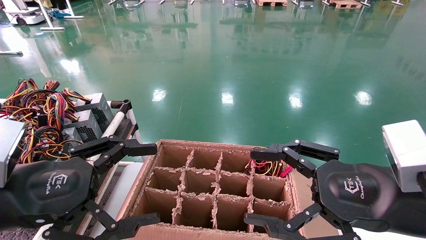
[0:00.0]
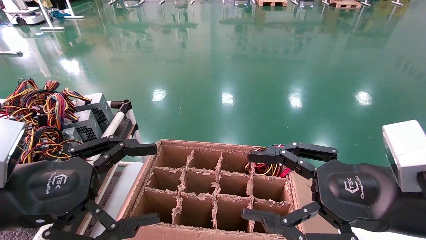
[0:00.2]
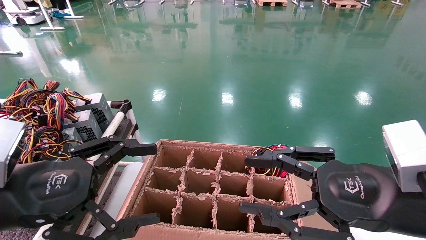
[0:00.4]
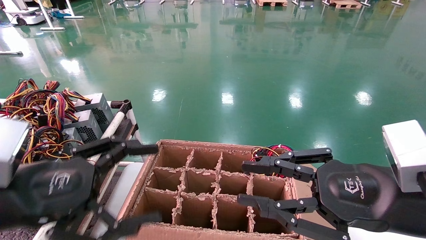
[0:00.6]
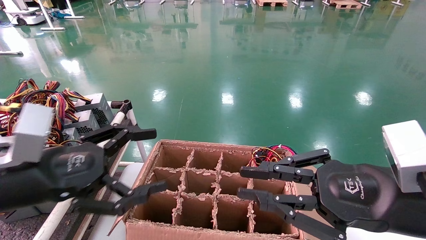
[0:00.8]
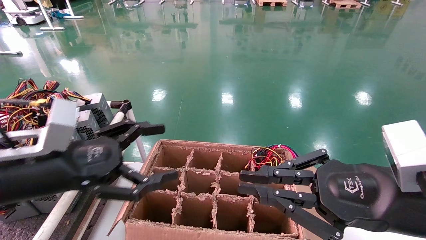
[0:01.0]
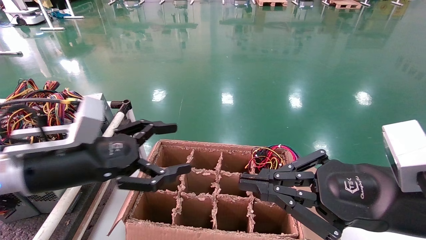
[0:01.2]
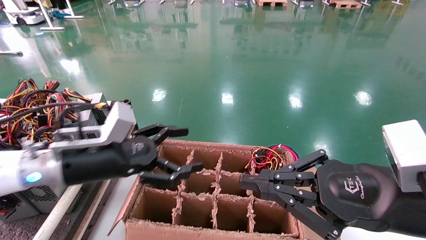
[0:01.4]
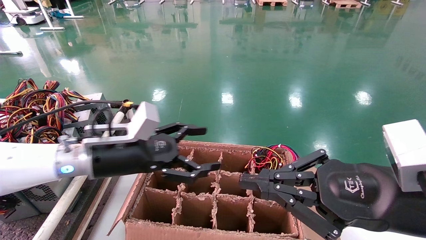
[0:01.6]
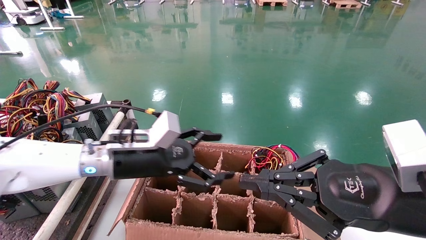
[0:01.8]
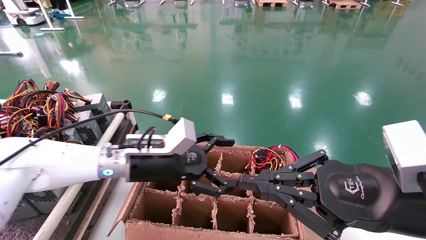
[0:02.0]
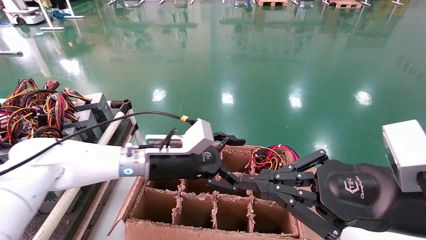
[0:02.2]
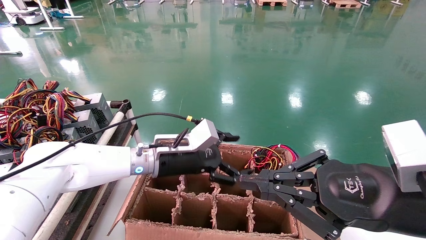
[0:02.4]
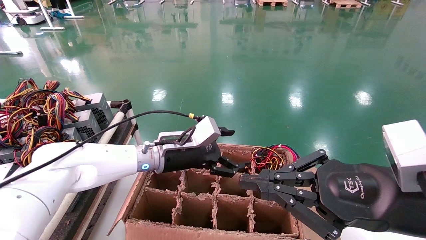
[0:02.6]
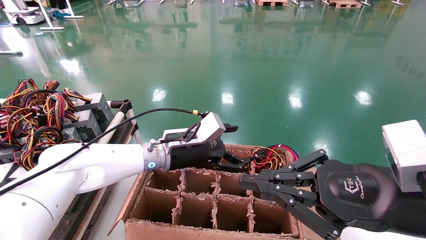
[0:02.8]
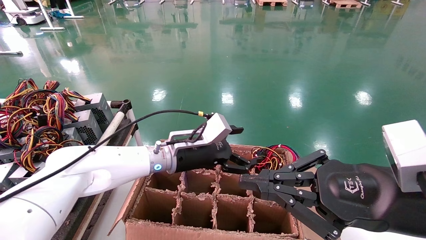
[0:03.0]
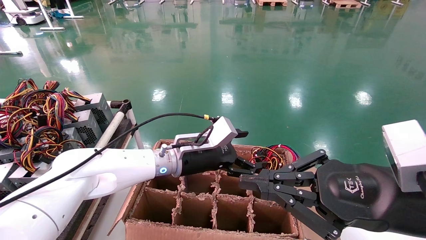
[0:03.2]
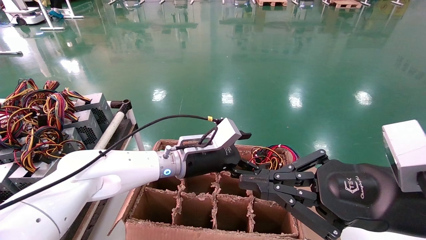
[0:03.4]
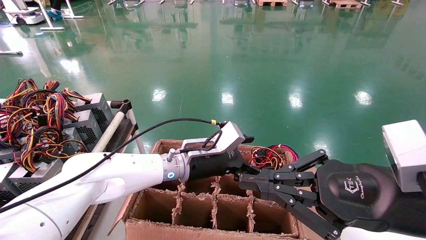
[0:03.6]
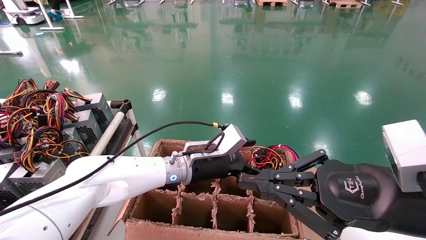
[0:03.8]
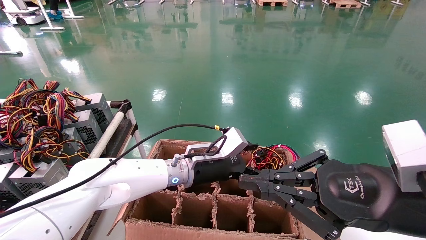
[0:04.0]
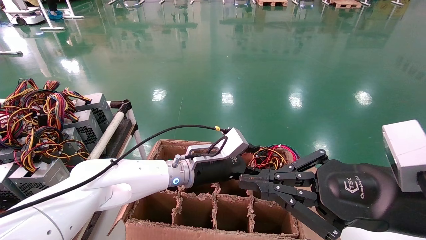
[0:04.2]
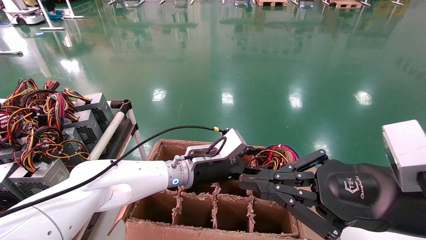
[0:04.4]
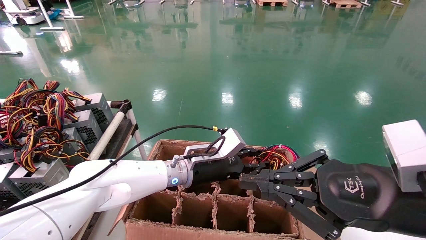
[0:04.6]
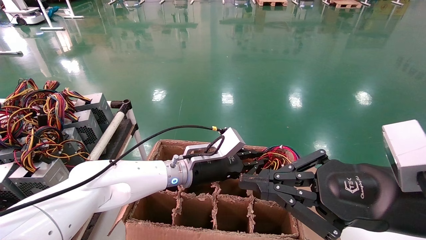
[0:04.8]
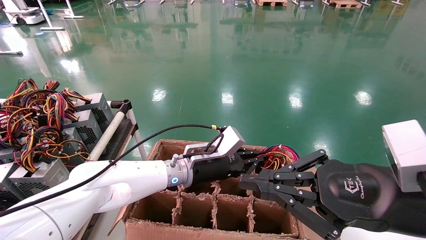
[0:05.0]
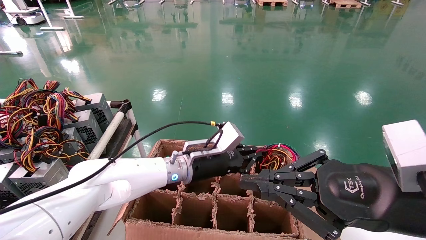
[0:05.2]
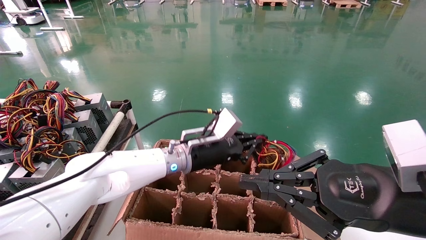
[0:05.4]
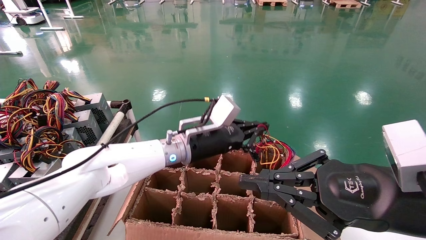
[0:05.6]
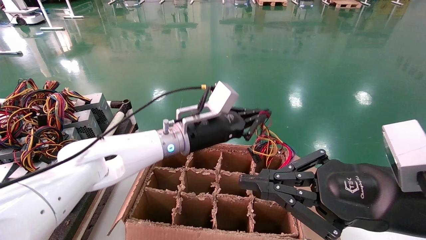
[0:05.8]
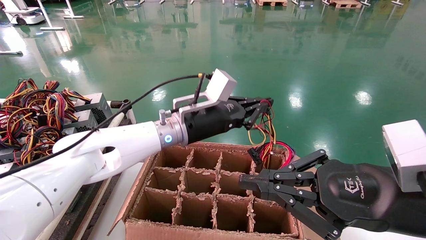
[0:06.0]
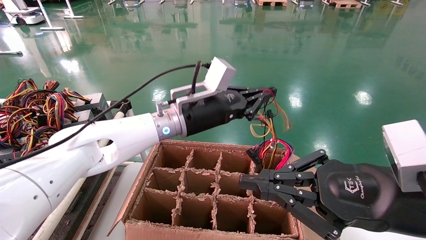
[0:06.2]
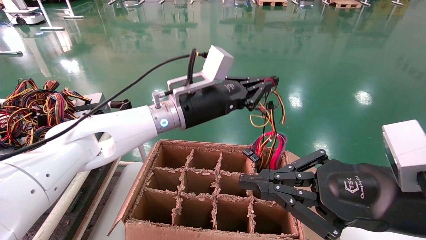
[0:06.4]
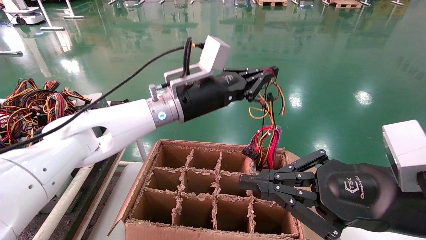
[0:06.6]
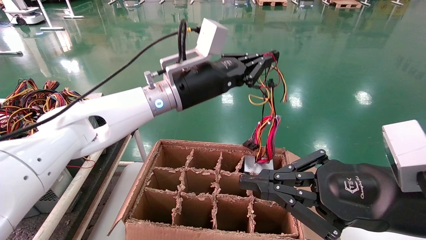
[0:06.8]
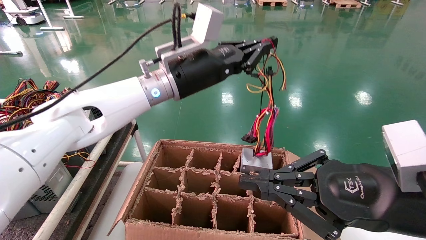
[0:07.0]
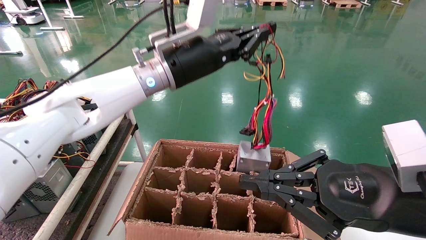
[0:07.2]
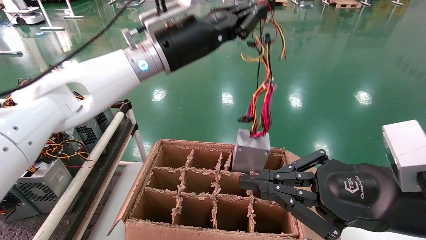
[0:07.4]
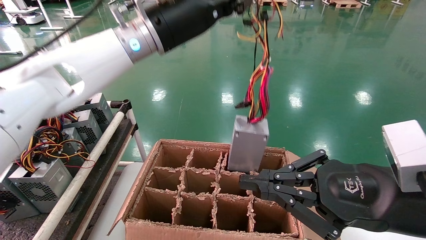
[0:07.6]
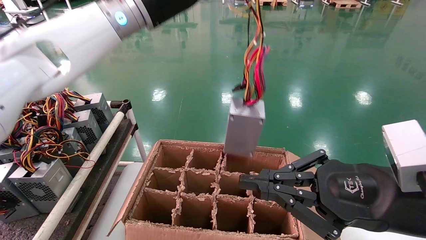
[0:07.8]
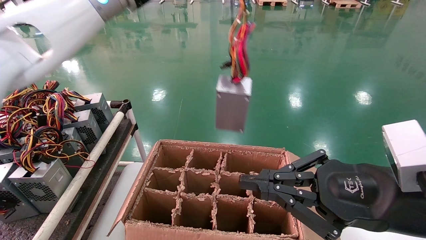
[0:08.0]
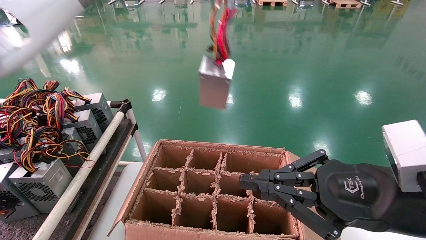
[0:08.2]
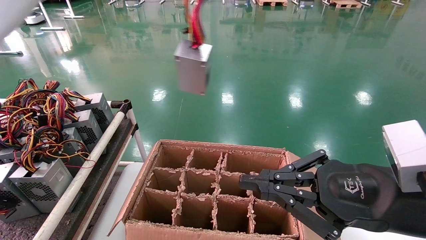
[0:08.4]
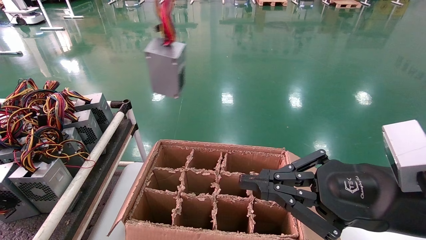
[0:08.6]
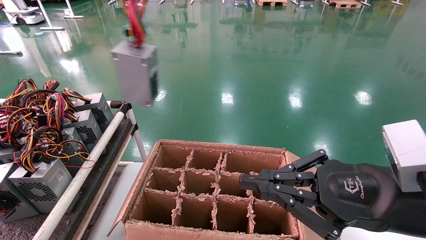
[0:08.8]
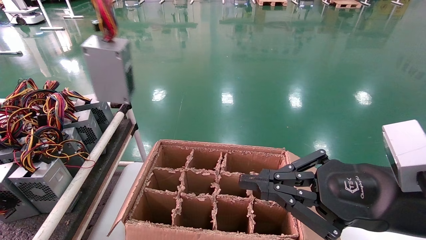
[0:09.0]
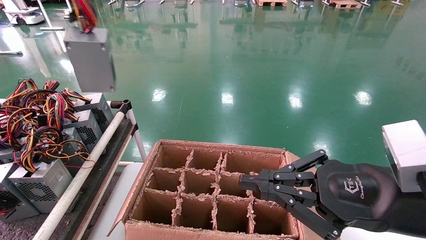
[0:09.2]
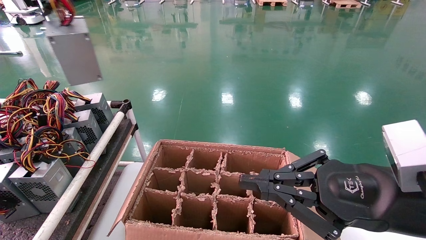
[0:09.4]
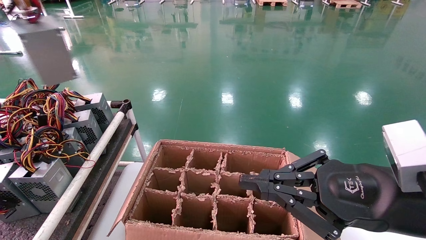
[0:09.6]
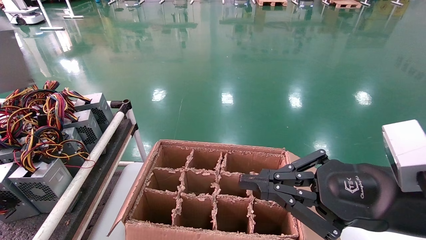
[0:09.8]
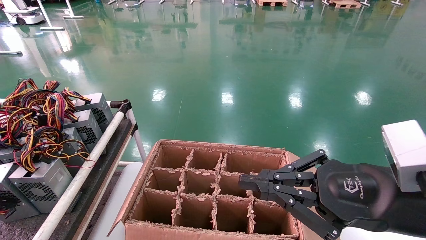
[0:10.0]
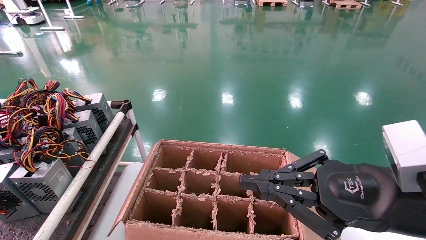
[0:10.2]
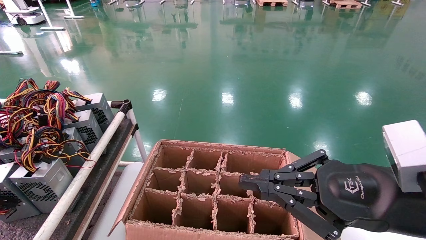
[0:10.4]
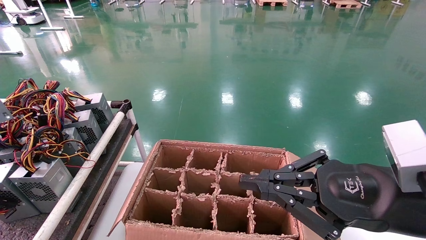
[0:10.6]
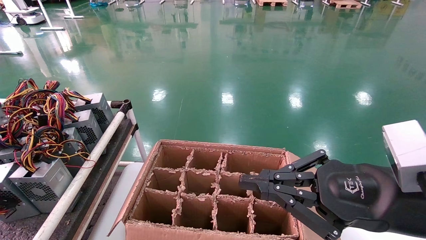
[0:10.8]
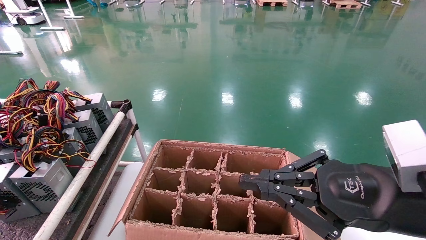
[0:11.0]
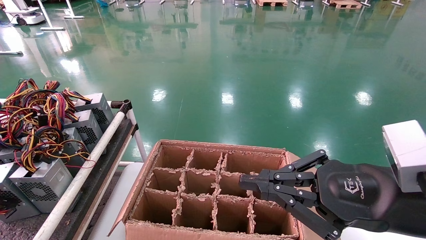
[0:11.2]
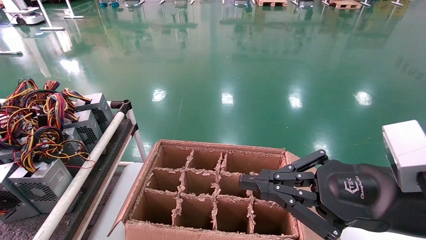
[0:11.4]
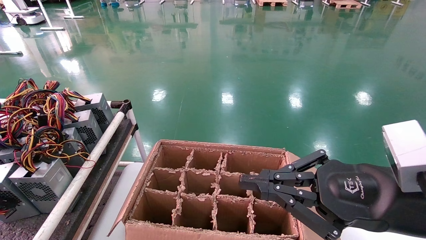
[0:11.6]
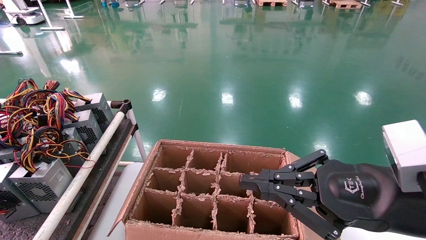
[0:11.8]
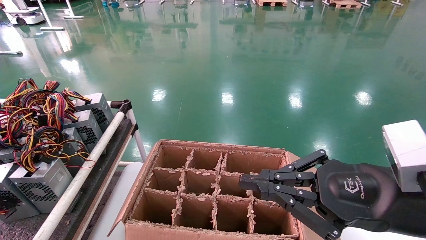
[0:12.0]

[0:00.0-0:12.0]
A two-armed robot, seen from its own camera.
Step, 0:01.6 to 0:05.4: Grab and lift the power supply from the large box.
0:00.0 to 0:01.6: The left gripper shifts roughly 15 cm forward and to the right. The right gripper closes.
0:01.6 to 0:03.0: The left gripper goes approximately 15 cm to the right and forward.
0:03.0 to 0:04.4: The left gripper closes up.
0:04.4 to 0:06.0: The left gripper travels upward by approximately 10 cm, and closes its fingers.
0:06.0 to 0:07.6: The left gripper is displaced upward by about 20 cm.
0:07.6 to 0:09.0: The left gripper moves to the left and upward, some 30 cm.
0:09.0 to 0:10.4: The left gripper heads to the left and backward, covering some 30 cm.

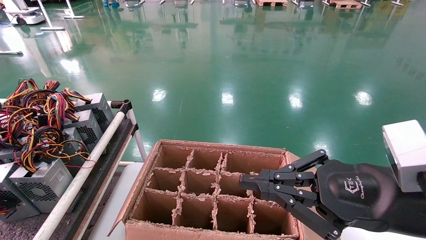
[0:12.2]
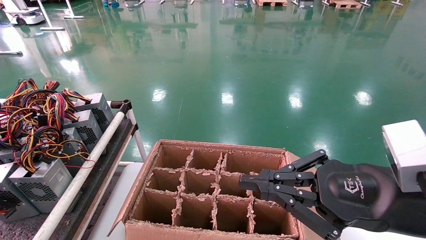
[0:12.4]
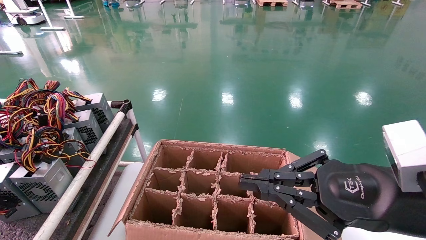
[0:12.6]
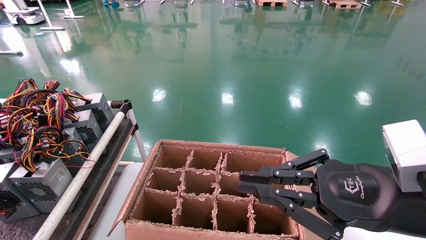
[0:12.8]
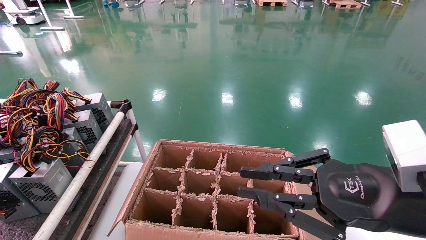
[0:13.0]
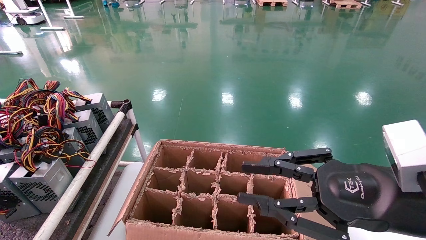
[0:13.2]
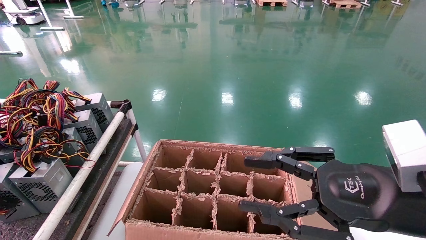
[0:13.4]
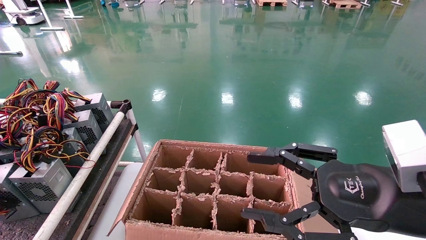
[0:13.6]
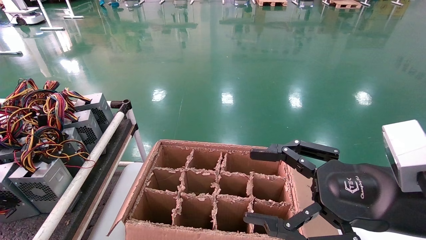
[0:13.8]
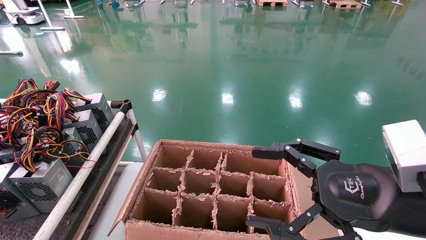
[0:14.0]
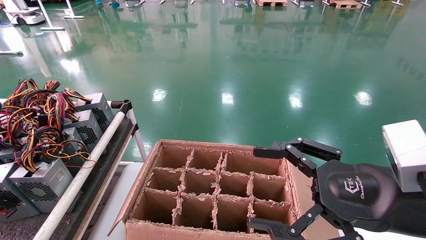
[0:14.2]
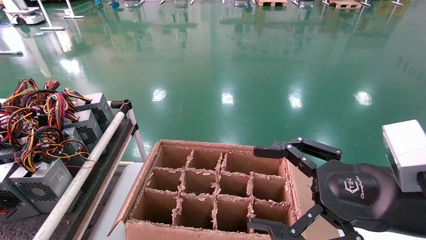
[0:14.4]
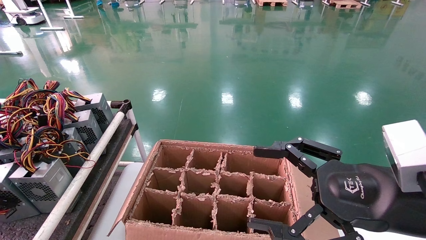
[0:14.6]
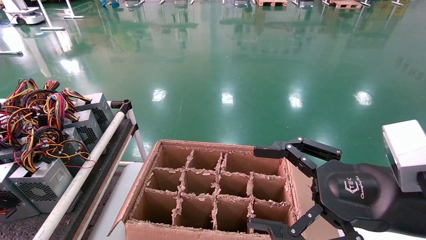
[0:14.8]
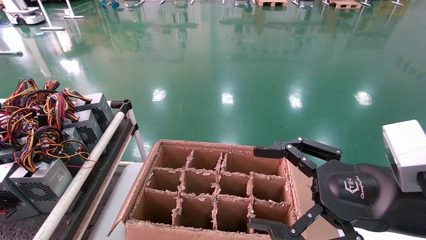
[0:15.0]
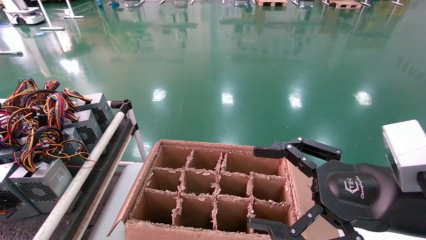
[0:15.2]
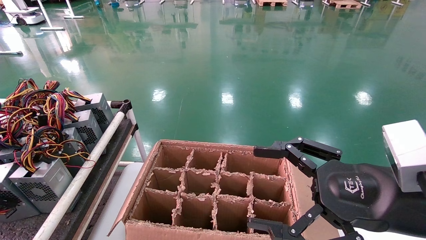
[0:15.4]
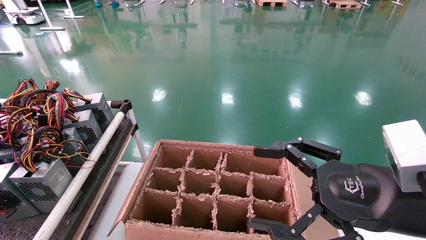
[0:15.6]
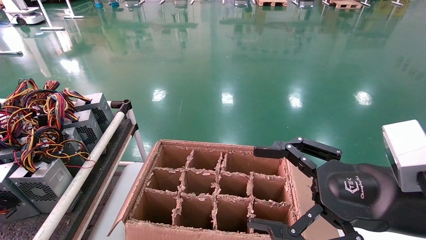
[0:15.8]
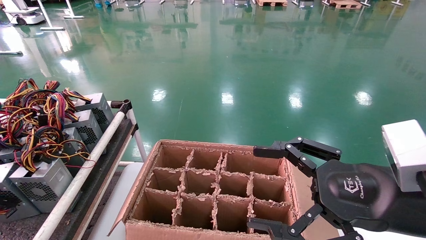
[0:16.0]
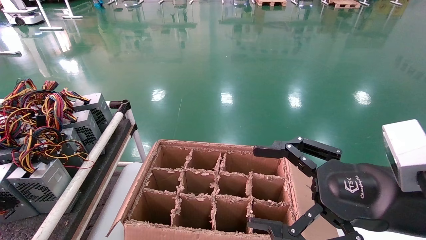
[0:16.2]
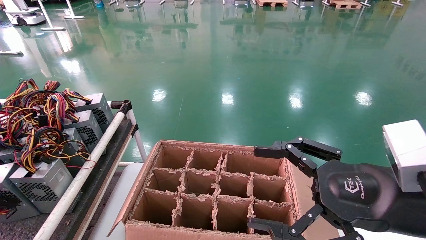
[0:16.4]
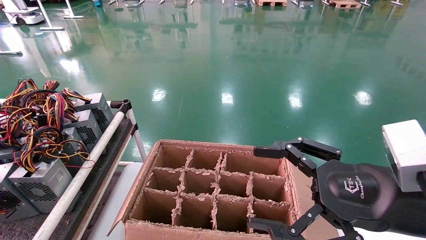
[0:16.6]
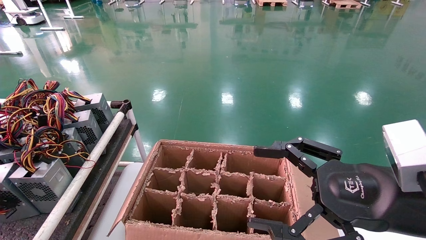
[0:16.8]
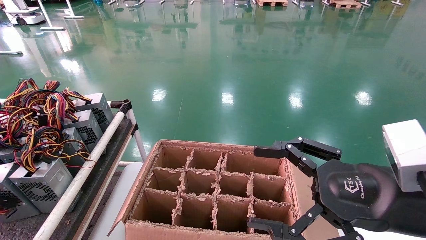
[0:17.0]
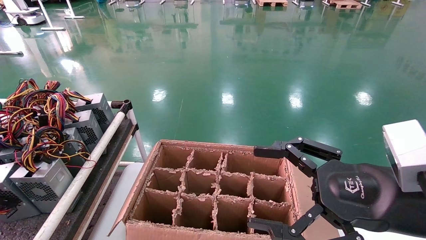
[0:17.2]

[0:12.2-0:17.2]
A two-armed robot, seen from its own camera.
Step, 0:12.2 to 0:15.4: Place the power supply on the operating table.
0:12.2 to 0:13.8: The right gripper opens its fingers; the left gripper goes some 15 cm downward and forward.
0:13.8 to 0:15.6: The left gripper opens.
